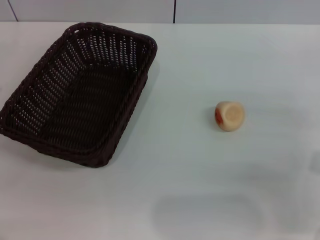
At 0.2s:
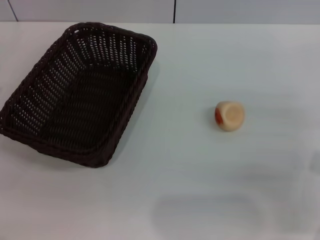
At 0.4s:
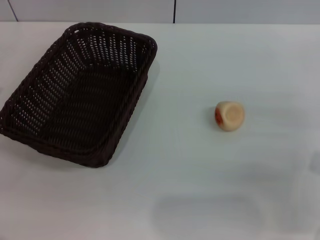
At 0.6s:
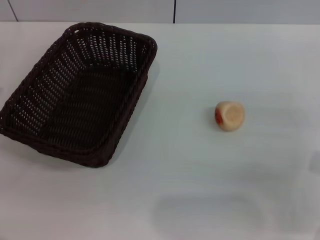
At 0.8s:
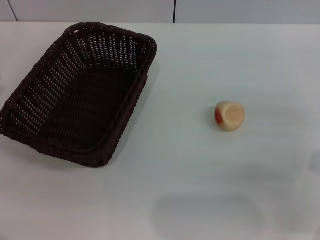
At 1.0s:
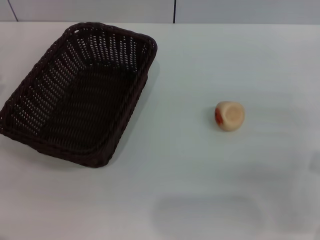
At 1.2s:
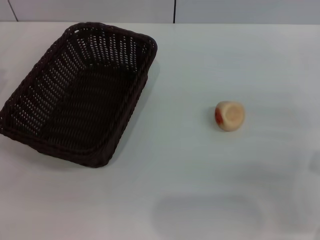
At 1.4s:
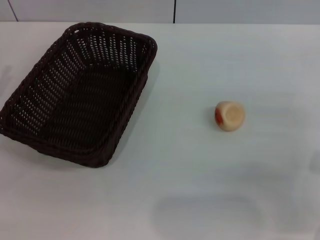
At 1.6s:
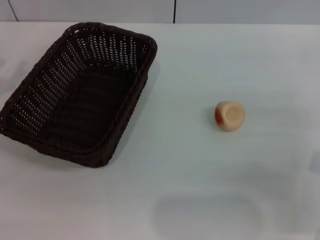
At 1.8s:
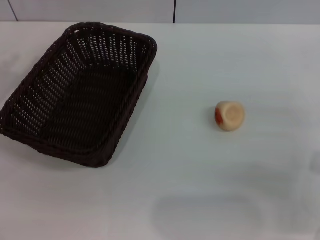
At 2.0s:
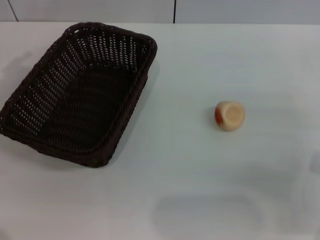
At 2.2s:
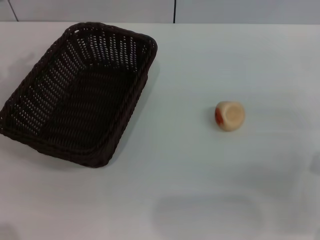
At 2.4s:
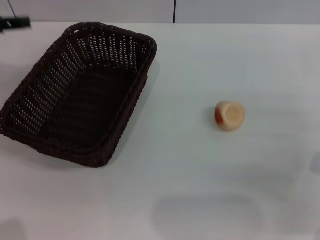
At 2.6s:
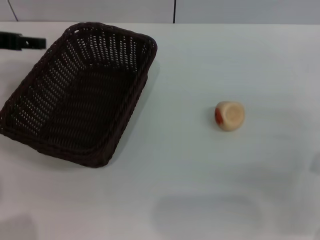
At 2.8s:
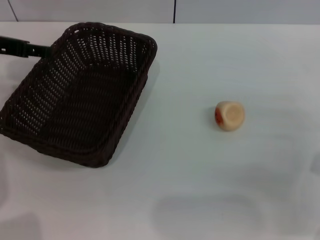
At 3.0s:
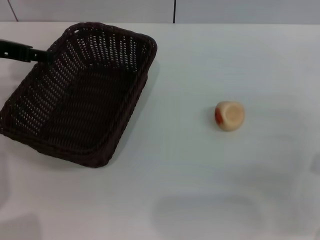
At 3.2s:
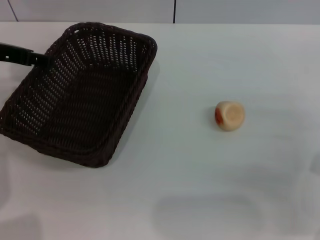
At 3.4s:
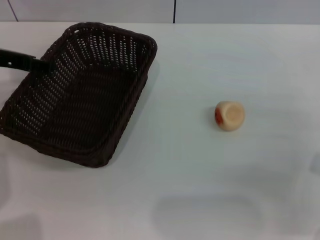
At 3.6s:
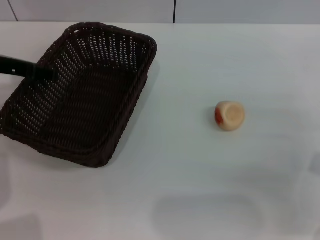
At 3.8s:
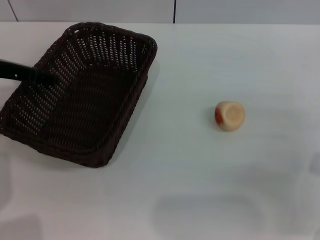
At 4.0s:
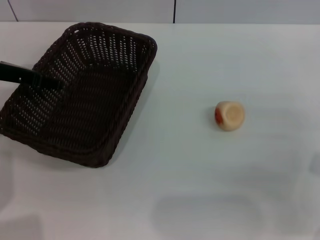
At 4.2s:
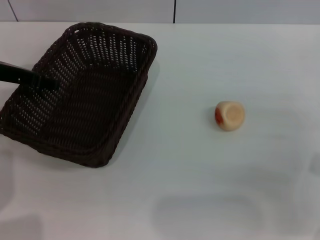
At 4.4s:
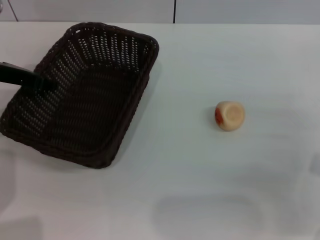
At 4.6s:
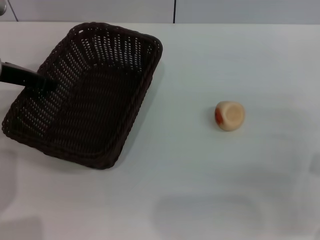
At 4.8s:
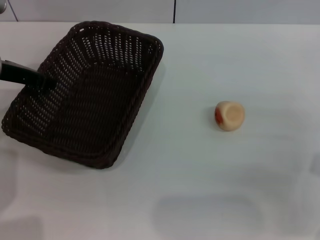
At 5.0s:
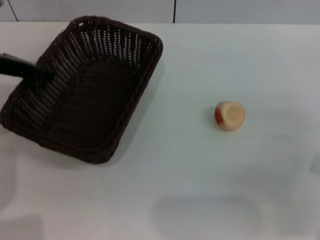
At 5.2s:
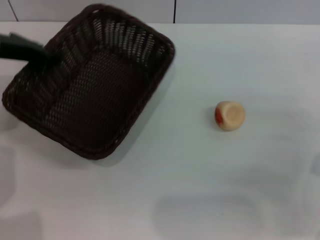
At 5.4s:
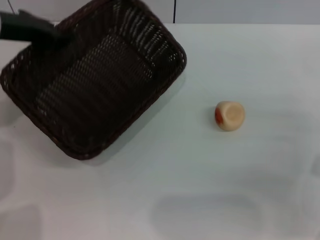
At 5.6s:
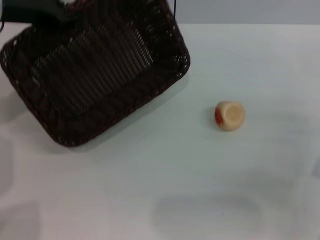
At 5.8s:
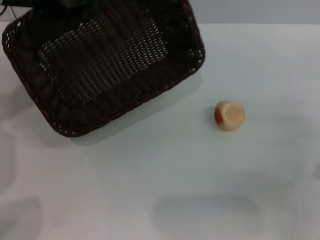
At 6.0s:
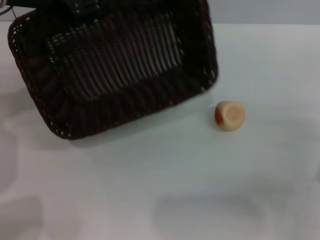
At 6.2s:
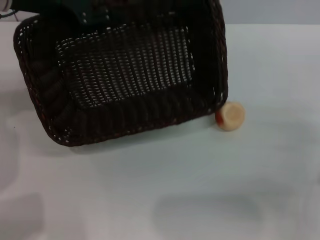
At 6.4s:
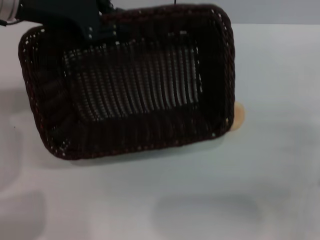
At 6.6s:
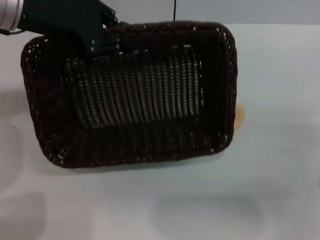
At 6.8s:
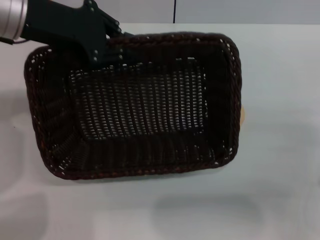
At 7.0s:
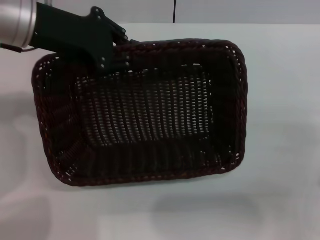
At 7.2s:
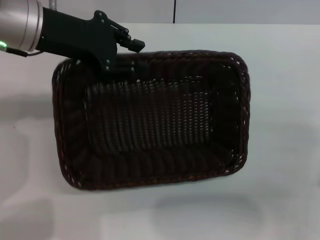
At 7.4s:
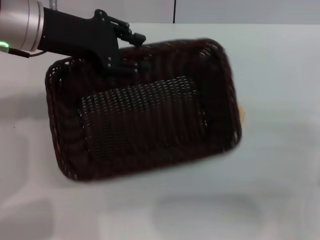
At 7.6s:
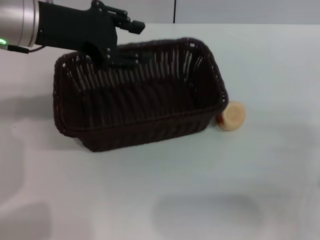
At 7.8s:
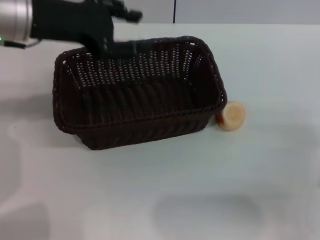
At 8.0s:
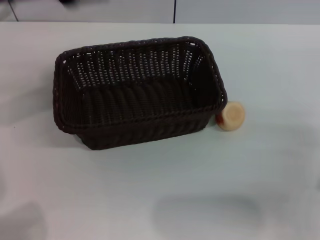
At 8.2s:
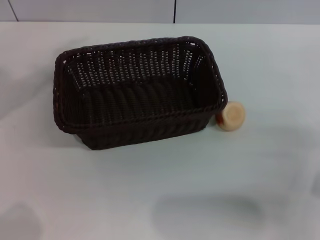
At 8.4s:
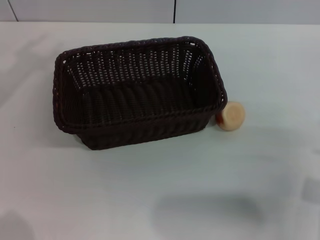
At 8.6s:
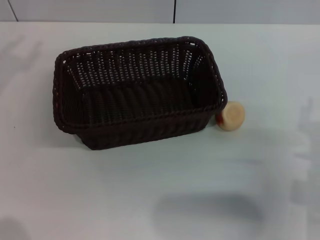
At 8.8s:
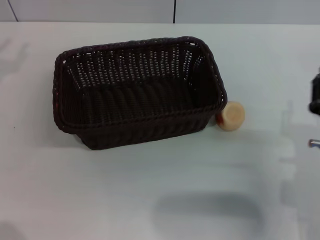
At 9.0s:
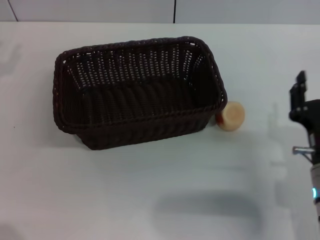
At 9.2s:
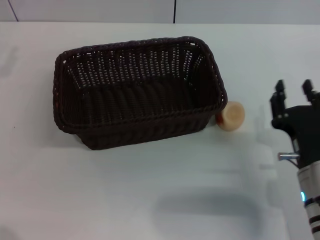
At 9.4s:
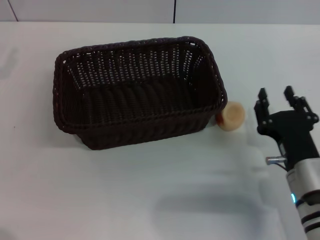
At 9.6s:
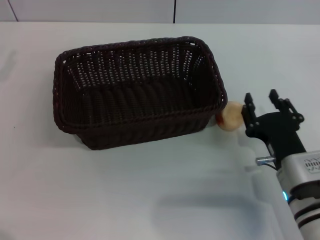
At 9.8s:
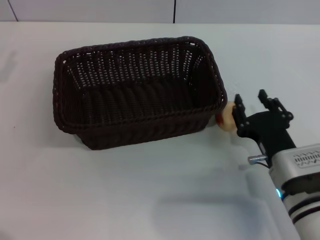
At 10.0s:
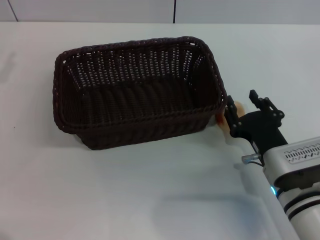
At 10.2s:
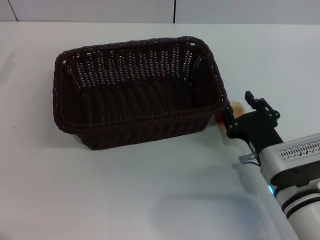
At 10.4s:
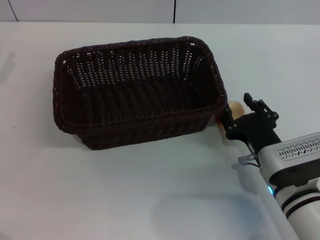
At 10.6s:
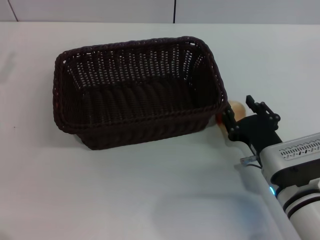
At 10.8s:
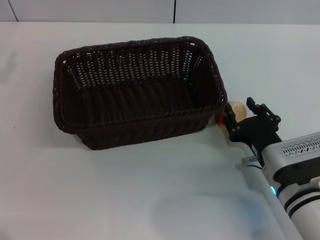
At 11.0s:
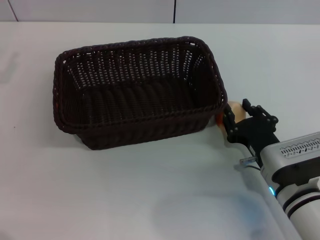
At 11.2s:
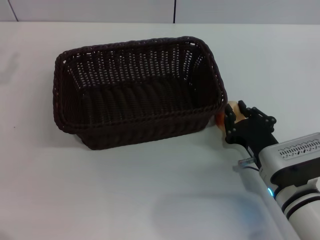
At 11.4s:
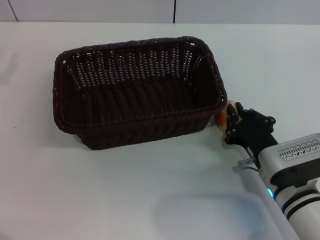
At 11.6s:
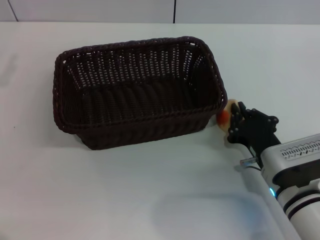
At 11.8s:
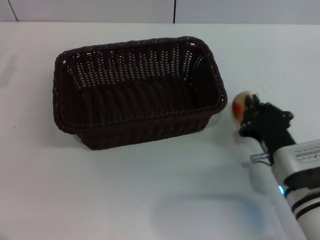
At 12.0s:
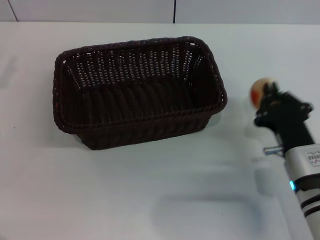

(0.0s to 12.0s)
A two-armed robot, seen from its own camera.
Step, 0.0s - 7.6s: Move the basket to the center of view with the left gripper.
1.6s - 3.0s: The left gripper is displaced to the right, forward and upward by about 15 cm.
3.0s - 4.4s: The grippers stay close to where they were, moving slightly.
4.4s - 6.0s: The left gripper shifts about 10 cm upward, and closes.
6.0s - 7.6s: The left gripper opens.
7.6s - 9.0s: The right gripper moves to the left, about 10 cm. Meanwhile the left gripper is displaced to the left by approximately 20 cm.
9.0s - 10.4s: The right gripper shifts by about 5 cm.
10.4s - 12.0s: The right gripper closes its fingers.

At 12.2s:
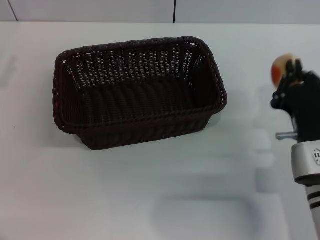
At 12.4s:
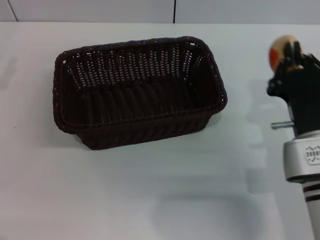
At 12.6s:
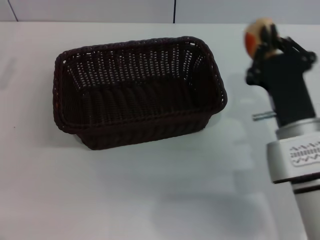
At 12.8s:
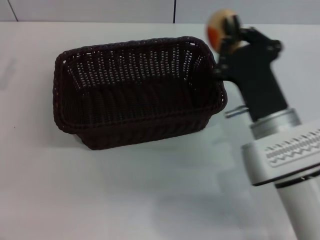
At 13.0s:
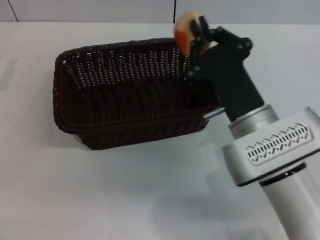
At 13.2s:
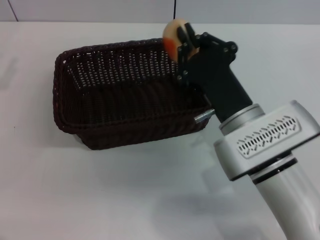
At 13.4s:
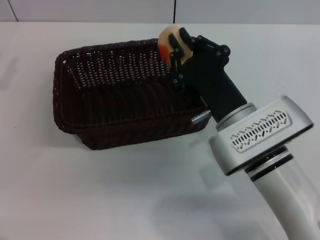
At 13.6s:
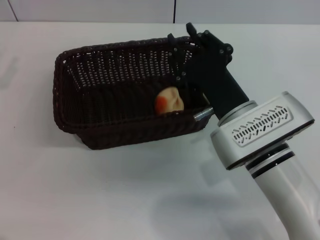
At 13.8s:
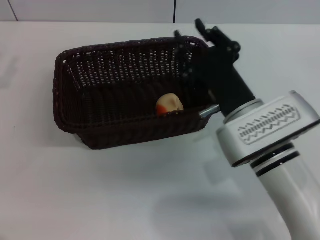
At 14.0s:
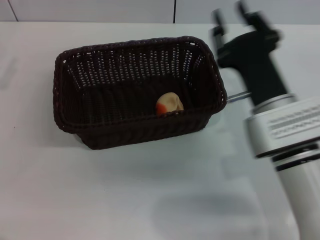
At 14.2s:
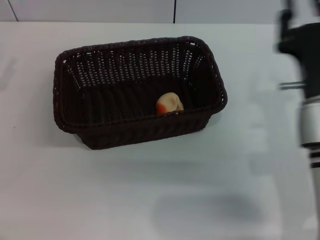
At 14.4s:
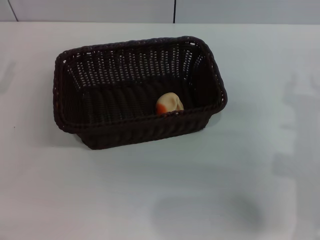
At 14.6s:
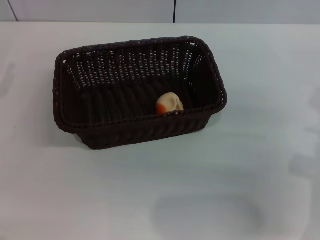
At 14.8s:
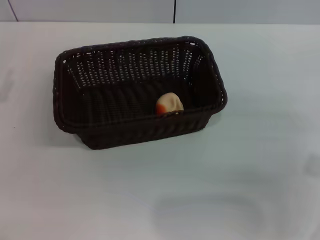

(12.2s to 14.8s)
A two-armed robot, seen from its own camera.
Step, 12.4s - 13.6s: Place the egg yolk pastry into the basket with the right gripper.
12.2s - 13.4s: The right gripper travels to the left by roughly 10 cm.
13.4s - 14.8s: The right gripper is displaced to the right by some 15 cm, and opens. The left gripper travels downward by approximately 5 cm.

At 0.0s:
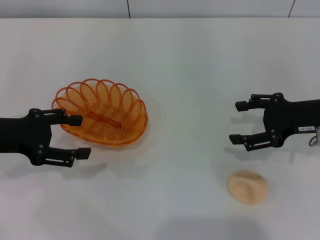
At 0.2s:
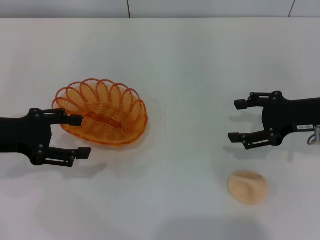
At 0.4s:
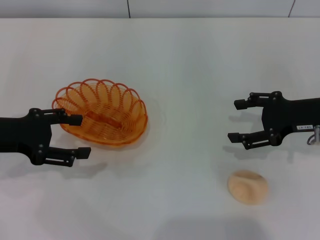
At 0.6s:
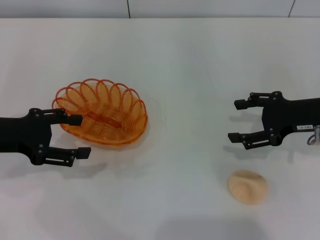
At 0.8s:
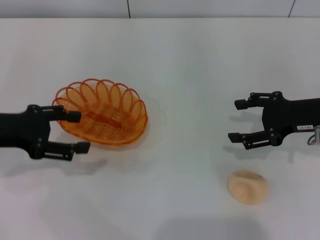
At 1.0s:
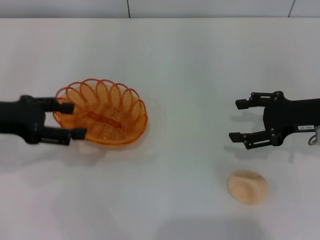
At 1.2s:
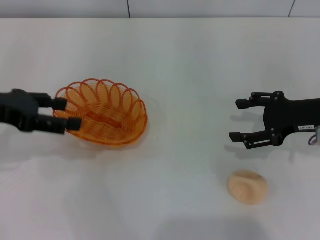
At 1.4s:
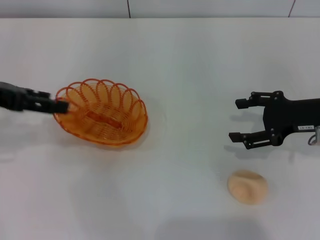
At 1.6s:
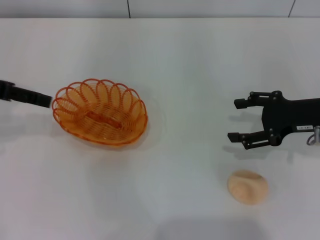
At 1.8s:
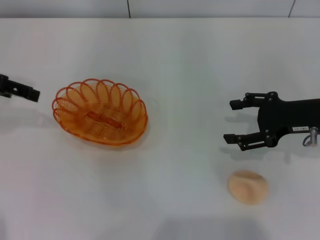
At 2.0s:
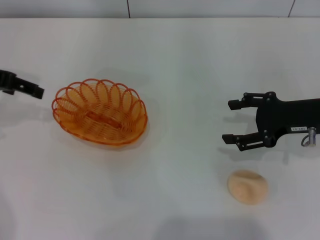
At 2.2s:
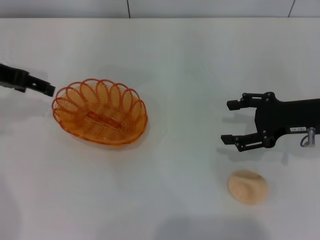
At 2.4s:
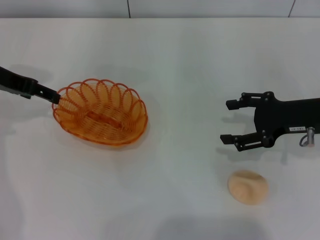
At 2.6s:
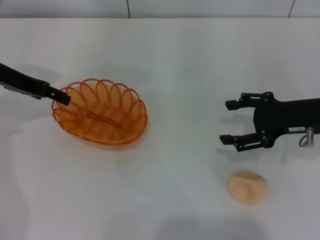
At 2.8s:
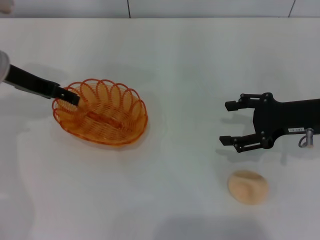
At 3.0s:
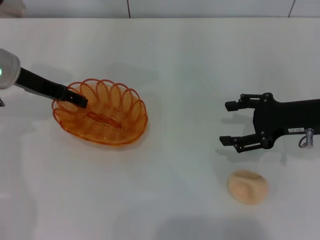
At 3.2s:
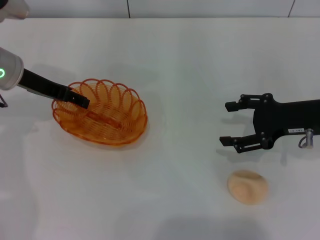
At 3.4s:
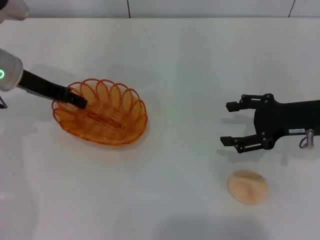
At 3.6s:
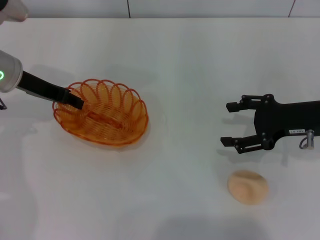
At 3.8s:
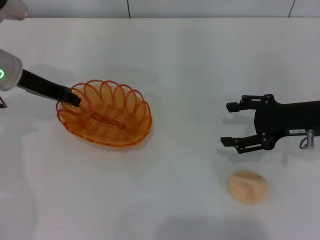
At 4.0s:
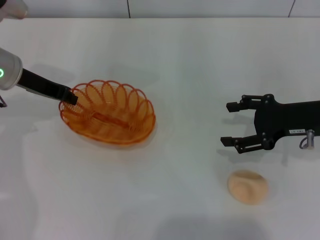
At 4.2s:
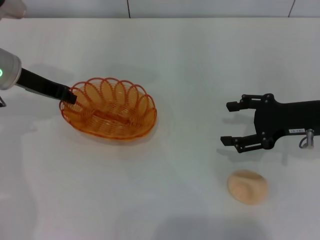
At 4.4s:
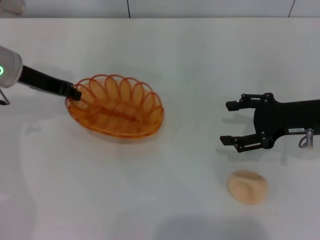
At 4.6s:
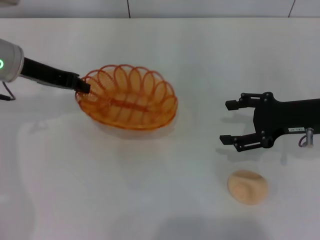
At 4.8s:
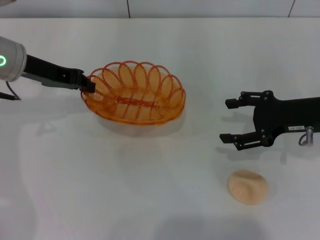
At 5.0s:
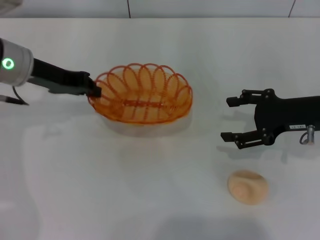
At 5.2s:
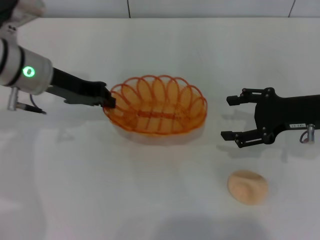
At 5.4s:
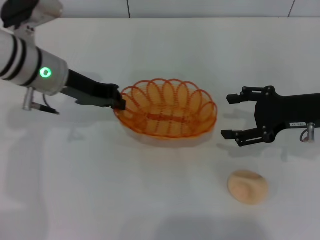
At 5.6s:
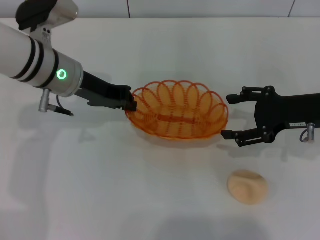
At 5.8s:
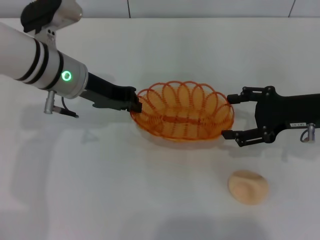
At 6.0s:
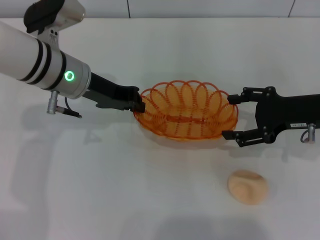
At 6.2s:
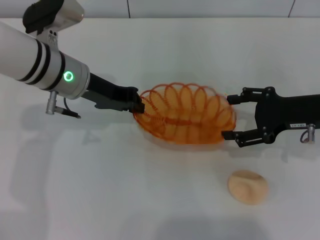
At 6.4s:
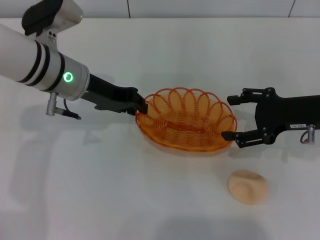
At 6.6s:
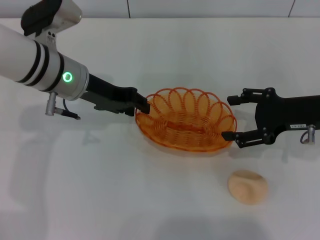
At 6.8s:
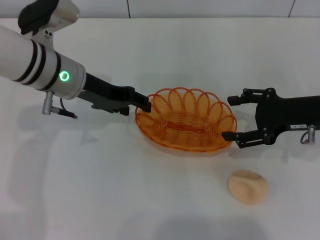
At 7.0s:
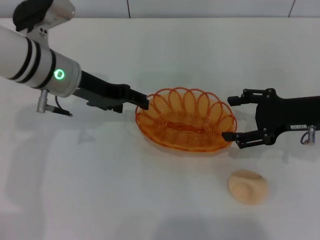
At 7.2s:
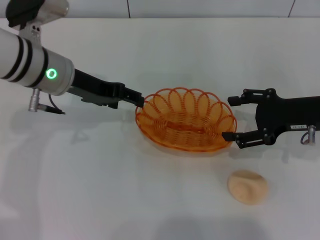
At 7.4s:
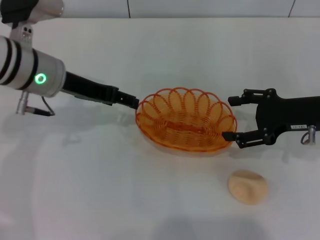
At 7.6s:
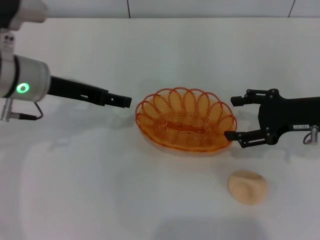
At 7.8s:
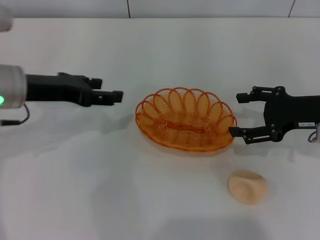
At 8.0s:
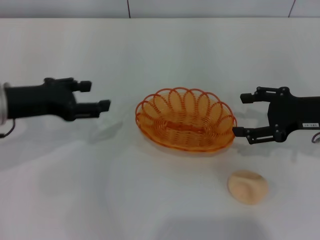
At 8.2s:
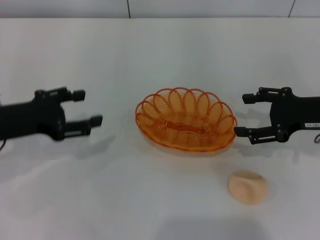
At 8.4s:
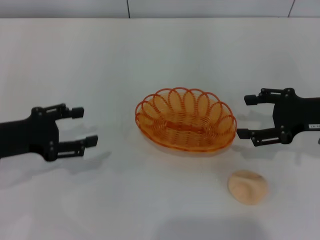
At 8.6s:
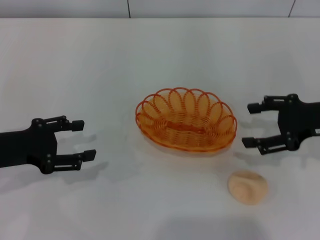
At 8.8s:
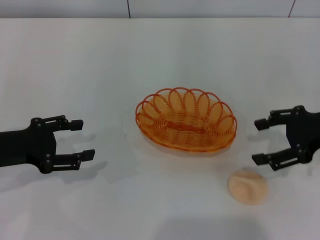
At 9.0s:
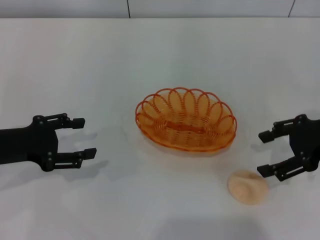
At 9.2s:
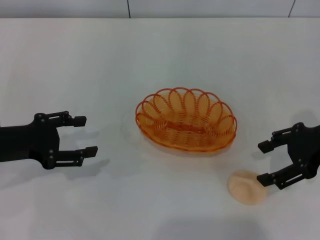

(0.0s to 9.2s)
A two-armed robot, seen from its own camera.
Step, 0.0s - 5.0s: Pick up the basket with the left gripper.
0.0s - 1.6s: The left gripper shifts approximately 10 cm upward.
1.6s - 3.0s: The left gripper travels downward, forward and to the right by approximately 10 cm.
3.0s - 4.6s: The left gripper closes up.
4.6s - 6.2s: The left gripper travels to the right by some 10 cm.
6.2s - 7.6s: The left gripper is displaced to the left by about 5 cm, and opens its fingers.
7.6s - 9.2s: The left gripper moves to the left, backward and downward, some 15 cm.
